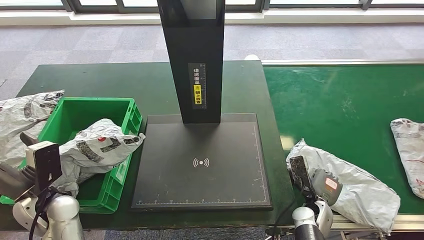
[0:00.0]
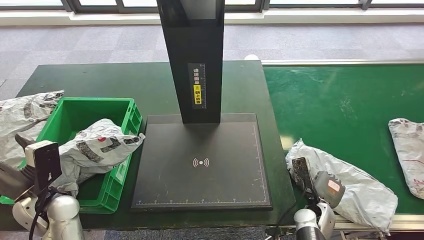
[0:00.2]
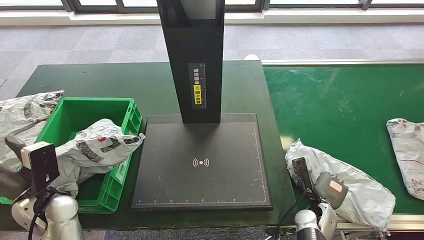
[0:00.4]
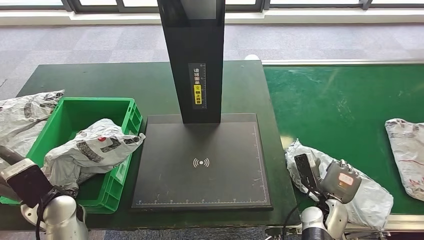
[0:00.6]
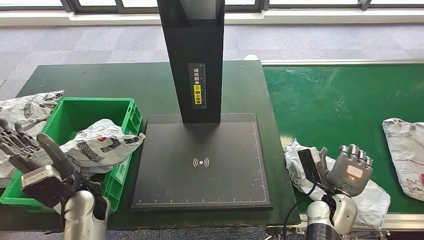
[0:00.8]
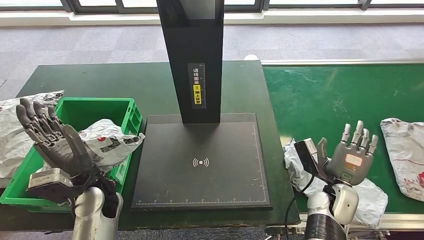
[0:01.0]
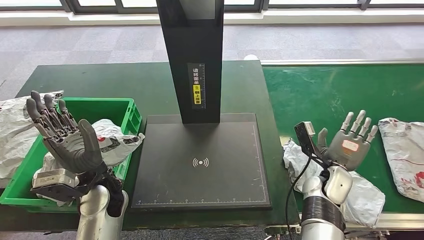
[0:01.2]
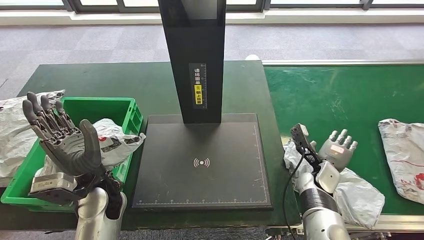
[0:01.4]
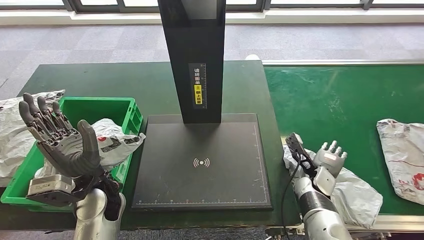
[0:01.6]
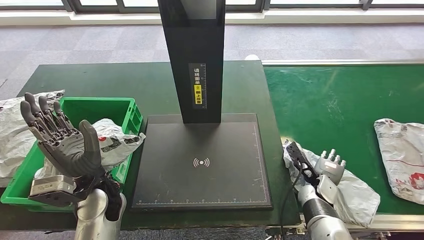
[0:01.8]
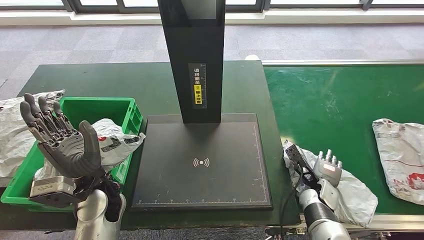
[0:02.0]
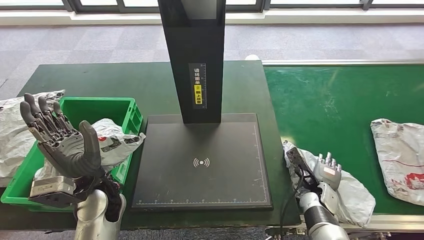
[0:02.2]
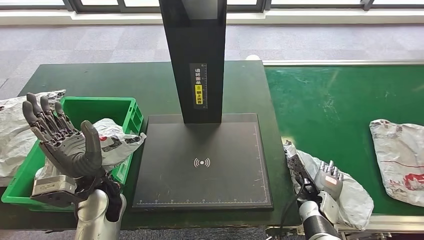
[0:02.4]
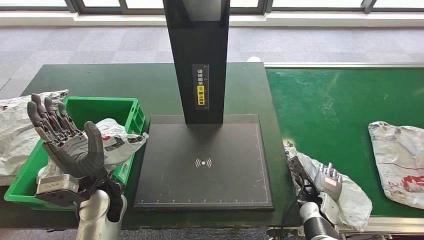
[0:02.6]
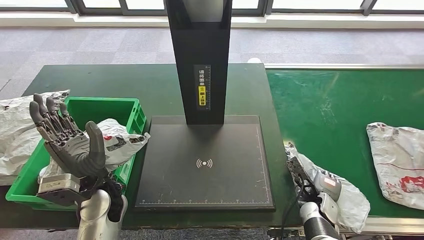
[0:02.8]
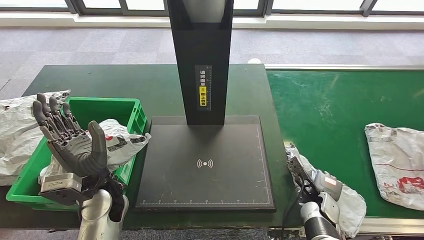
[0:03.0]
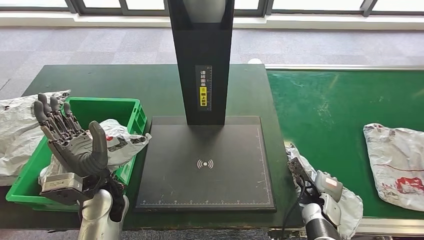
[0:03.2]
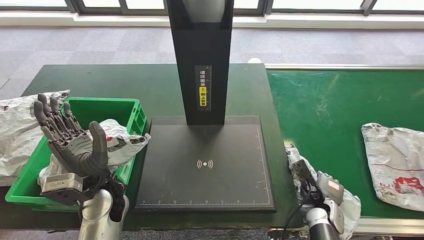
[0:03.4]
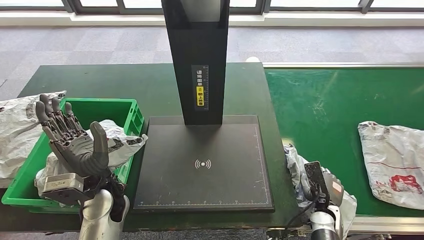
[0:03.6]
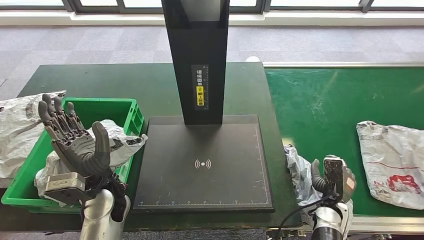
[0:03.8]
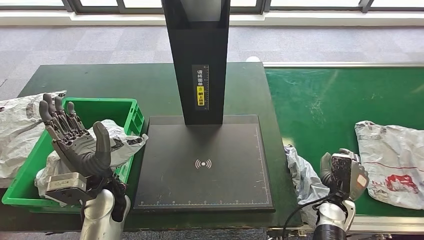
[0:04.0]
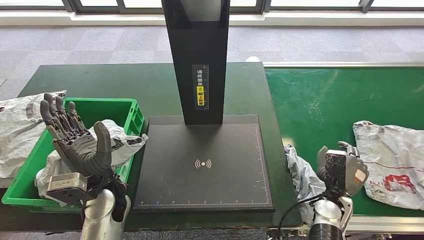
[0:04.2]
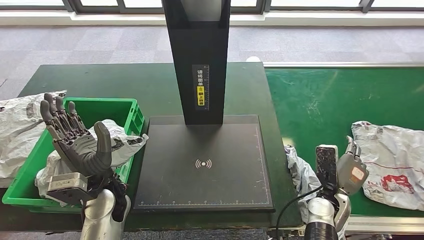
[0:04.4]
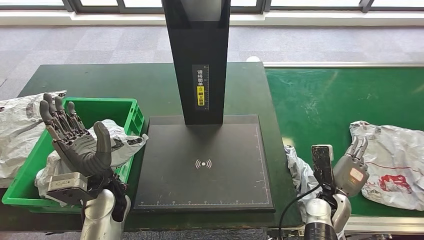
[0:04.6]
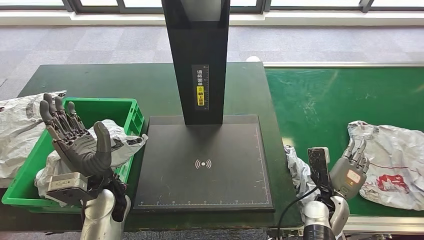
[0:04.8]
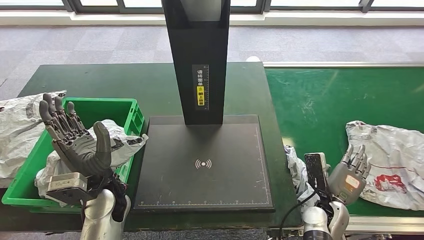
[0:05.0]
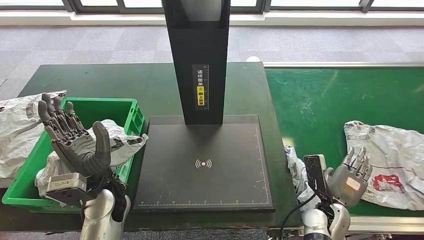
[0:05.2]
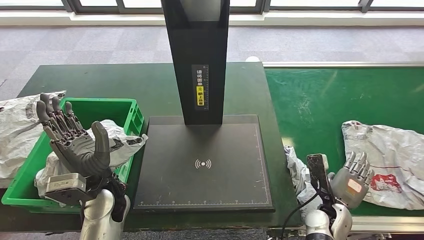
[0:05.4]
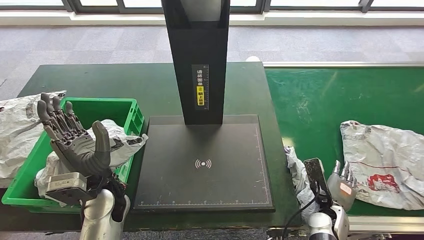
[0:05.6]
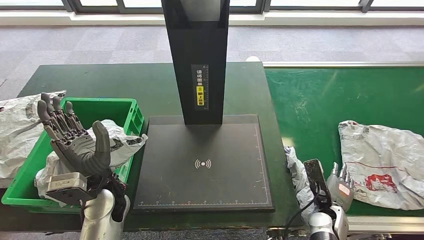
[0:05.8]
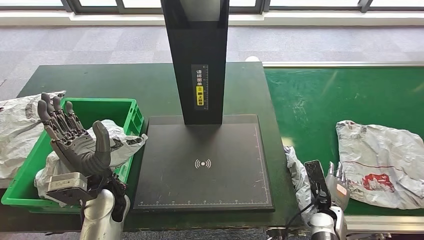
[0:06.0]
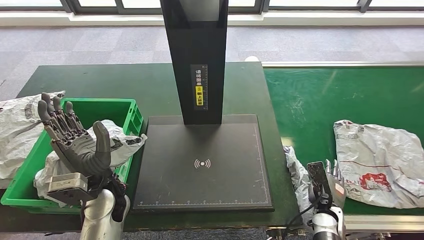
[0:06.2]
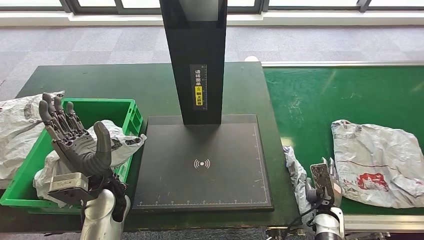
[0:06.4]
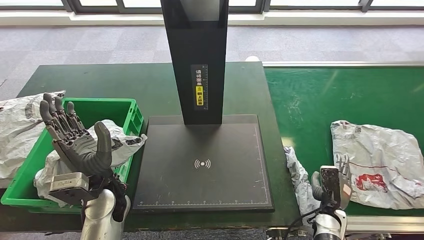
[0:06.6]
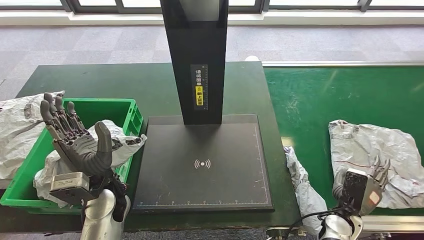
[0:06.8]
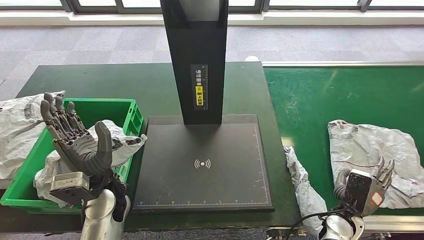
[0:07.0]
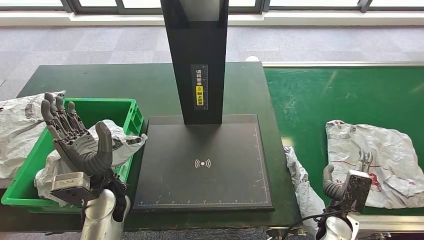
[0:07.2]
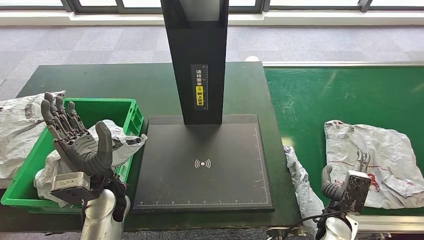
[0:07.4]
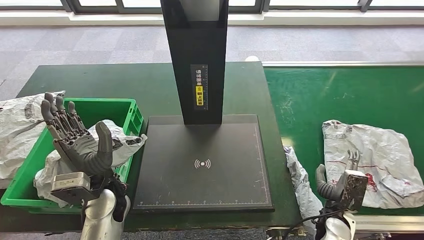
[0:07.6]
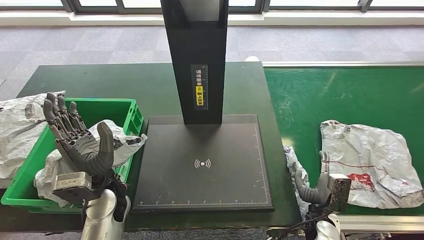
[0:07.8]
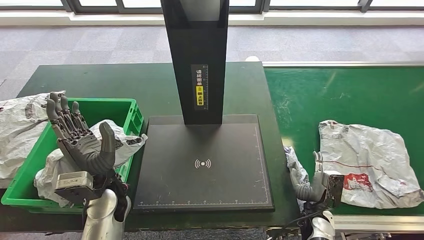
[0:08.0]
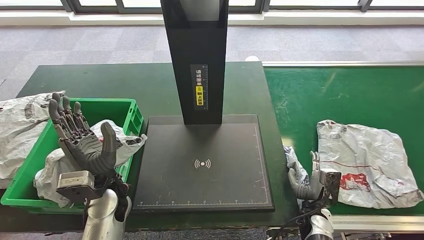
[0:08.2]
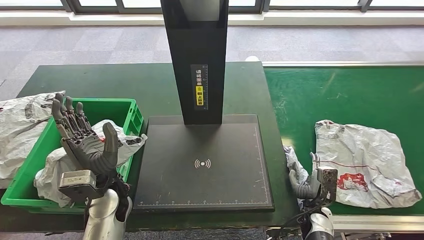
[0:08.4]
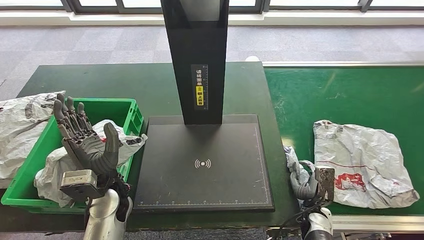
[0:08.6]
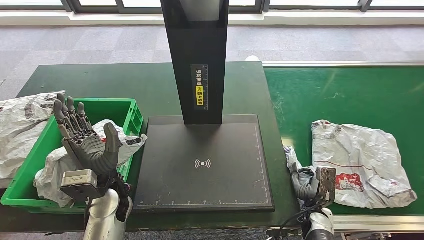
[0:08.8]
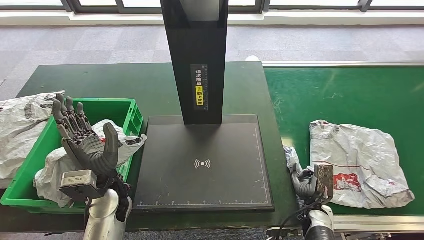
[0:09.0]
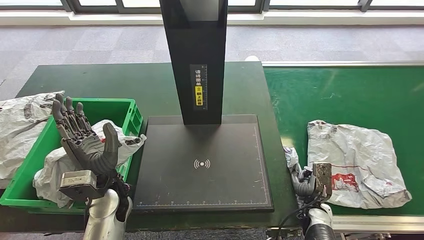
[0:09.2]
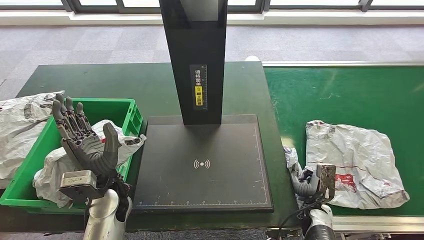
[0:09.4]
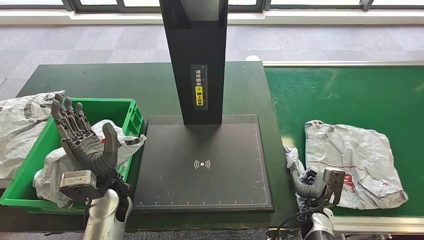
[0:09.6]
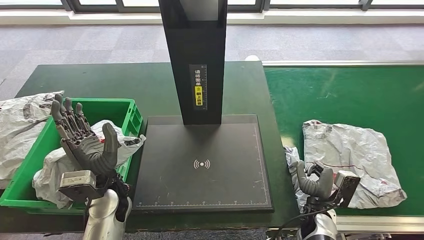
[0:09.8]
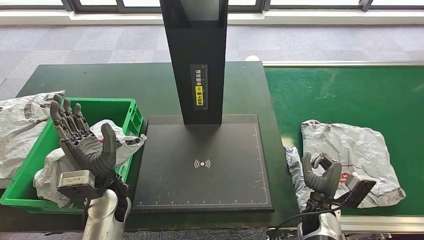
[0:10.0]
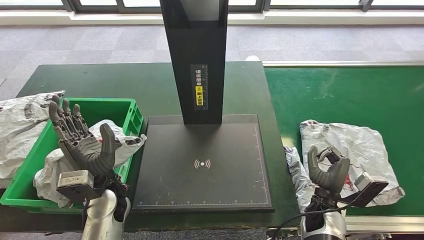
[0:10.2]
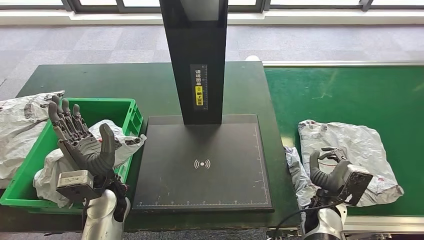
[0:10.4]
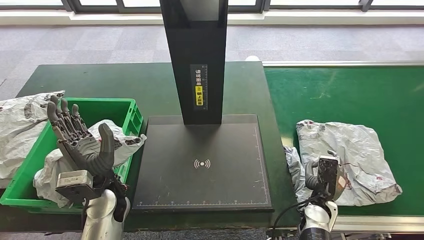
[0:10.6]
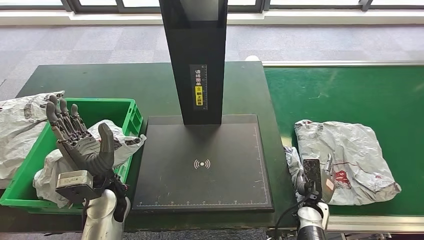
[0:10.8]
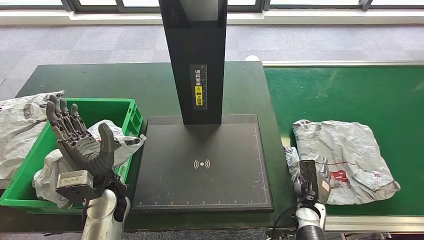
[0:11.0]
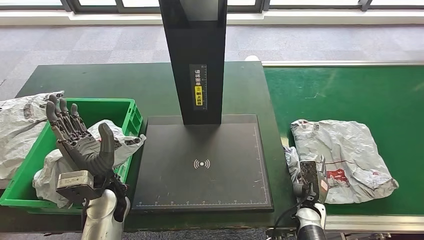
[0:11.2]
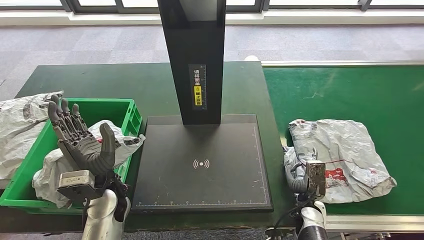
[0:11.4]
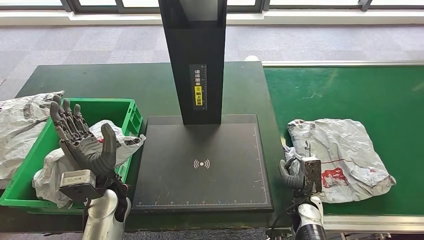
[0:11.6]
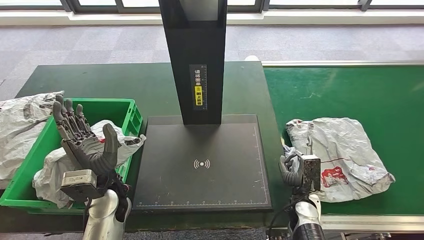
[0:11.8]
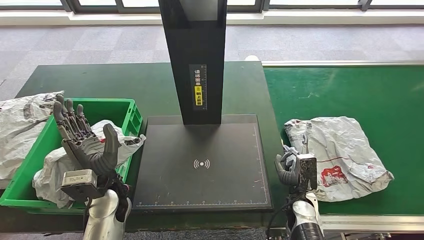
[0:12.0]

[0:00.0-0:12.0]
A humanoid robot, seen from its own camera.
Step, 0:00.0 to 0:02.0: Put the parcel inside the courier box.
0:00.0 to 0:01.6: The right hand goes roughly 10 cm forward. The left hand goes about 10 cm to the right.
0:04.4 to 0:06.0: The right hand heads downward, covering approximately 5 cm.
0:07.6 to 0:09.0: The right hand is displaced downward by about 5 cm.
0:09.0 to 0:10.4: The right hand goes approximately 10 cm upward.
0:10.4 to 0:12.0: The right hand moves some 5 cm.

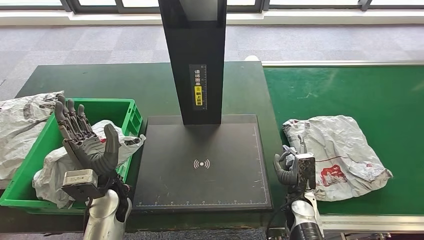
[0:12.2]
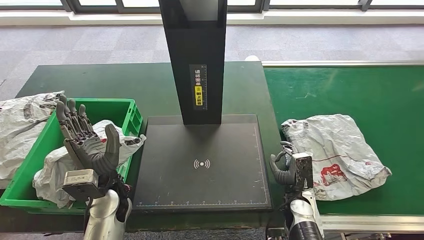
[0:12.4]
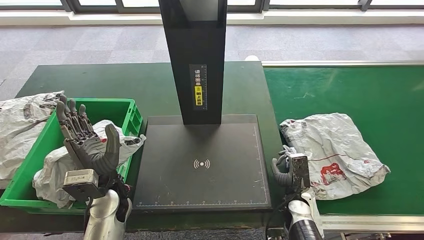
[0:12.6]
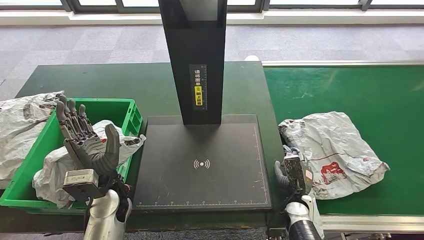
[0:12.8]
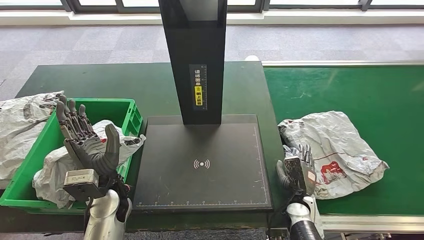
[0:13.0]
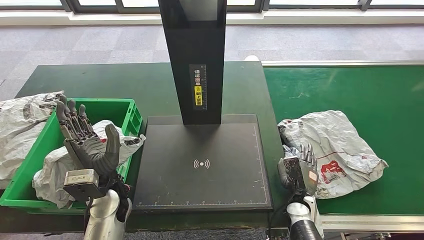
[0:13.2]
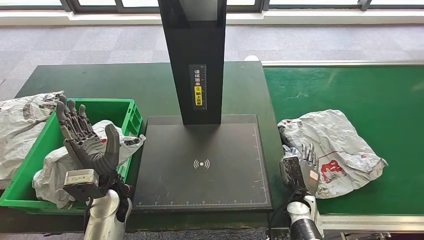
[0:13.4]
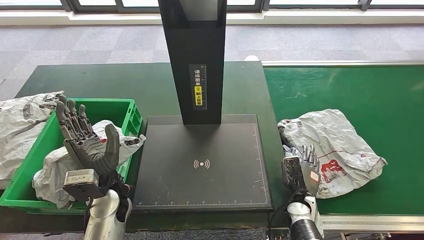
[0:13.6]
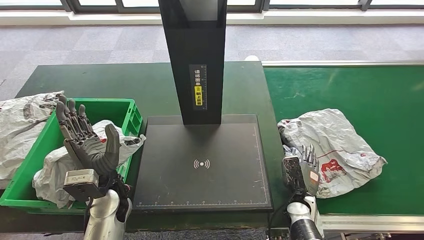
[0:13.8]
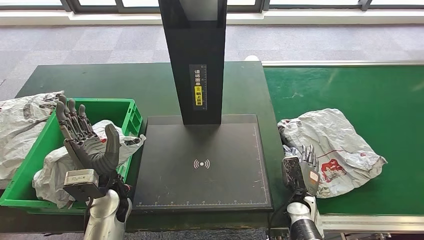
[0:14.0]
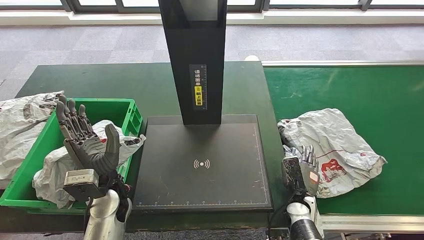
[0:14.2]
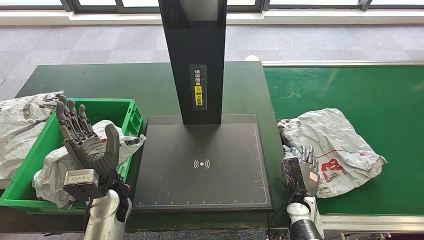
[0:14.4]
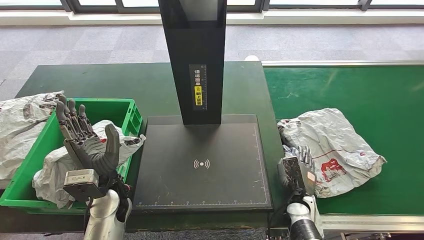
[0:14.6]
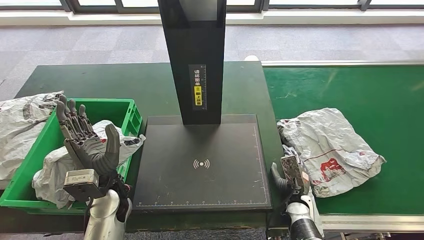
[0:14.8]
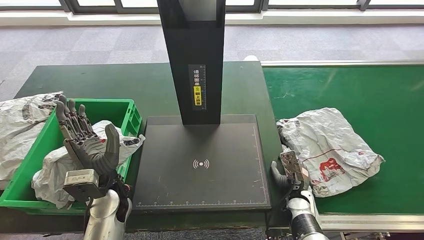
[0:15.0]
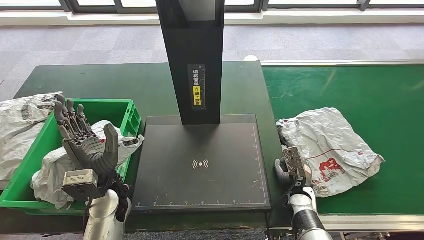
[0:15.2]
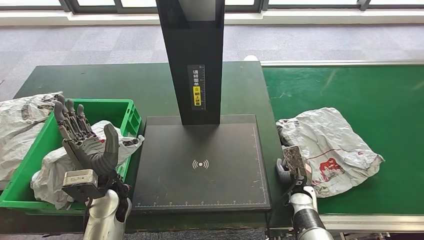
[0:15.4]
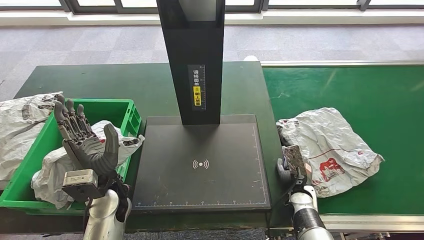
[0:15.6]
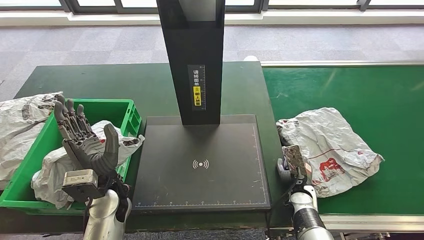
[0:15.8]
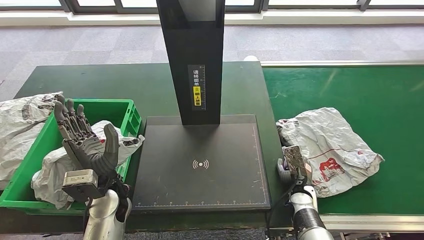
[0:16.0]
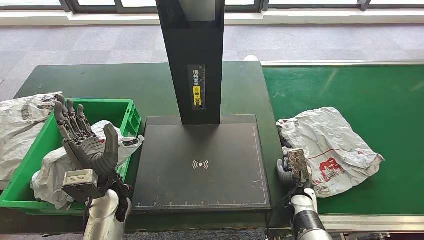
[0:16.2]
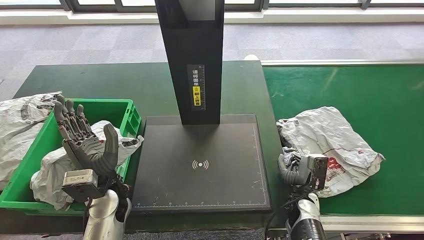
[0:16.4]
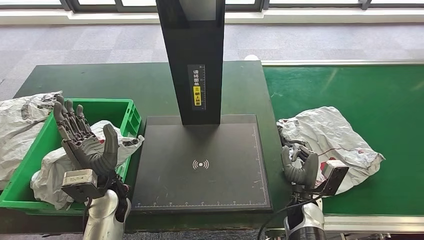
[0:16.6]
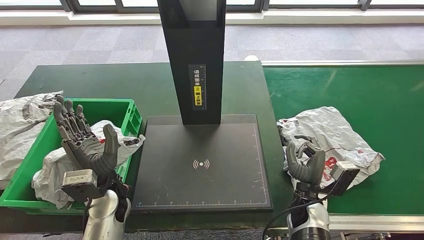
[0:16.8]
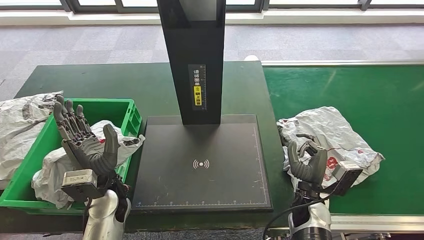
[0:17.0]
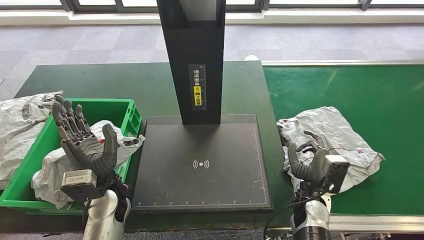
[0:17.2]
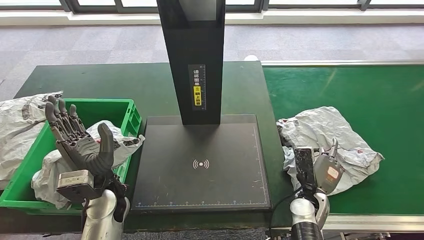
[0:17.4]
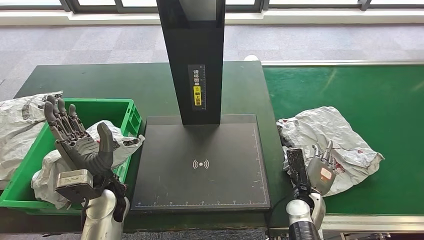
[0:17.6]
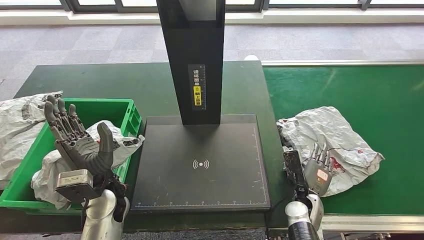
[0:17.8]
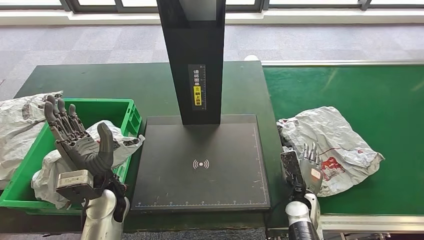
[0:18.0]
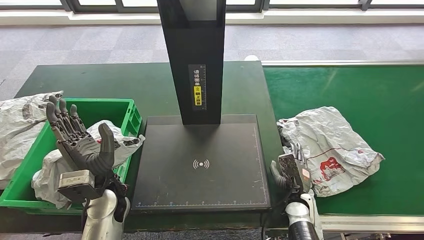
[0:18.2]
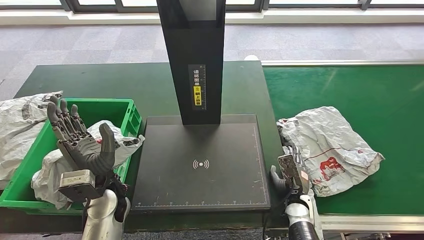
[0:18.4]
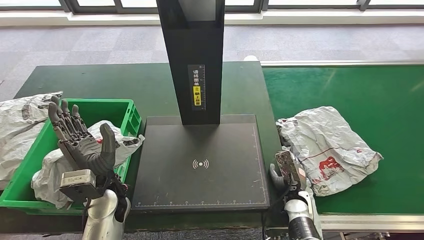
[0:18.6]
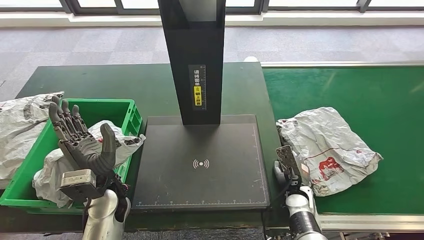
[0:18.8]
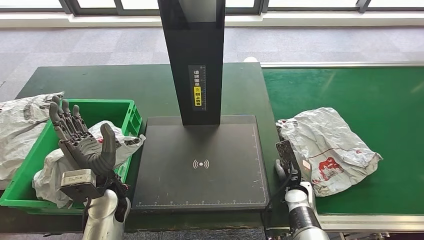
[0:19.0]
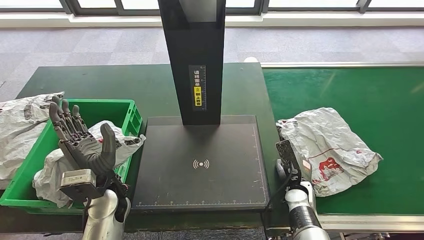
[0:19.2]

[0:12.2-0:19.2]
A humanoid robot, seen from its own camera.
0:13.6 to 0:15.0: The hands stay close to where they were, moving slightly.
